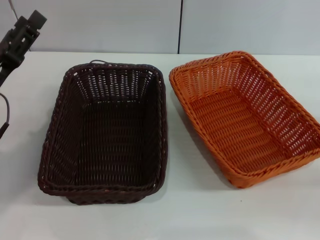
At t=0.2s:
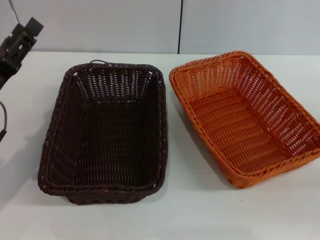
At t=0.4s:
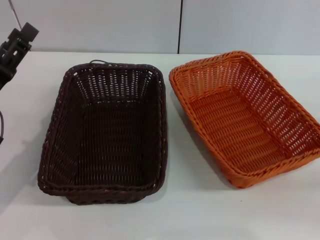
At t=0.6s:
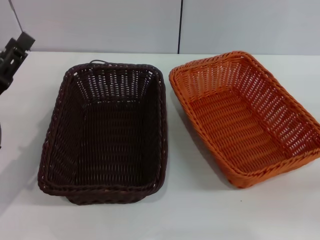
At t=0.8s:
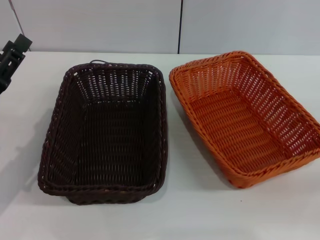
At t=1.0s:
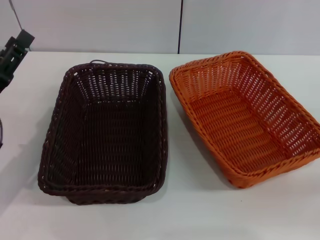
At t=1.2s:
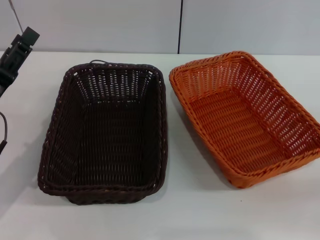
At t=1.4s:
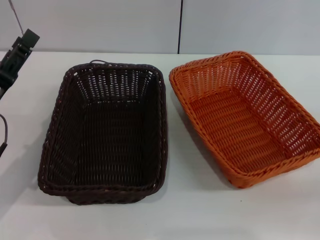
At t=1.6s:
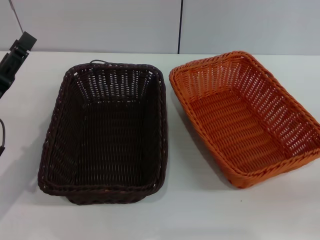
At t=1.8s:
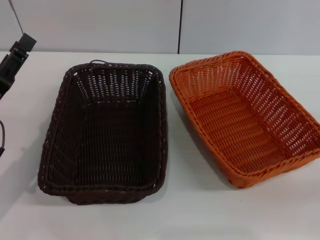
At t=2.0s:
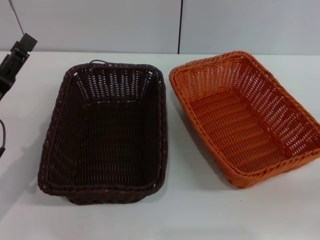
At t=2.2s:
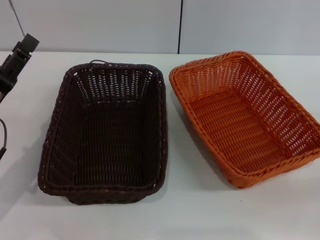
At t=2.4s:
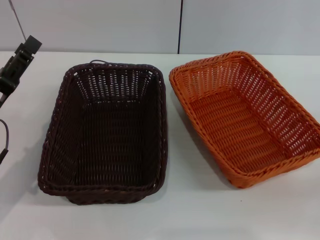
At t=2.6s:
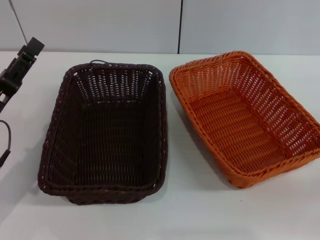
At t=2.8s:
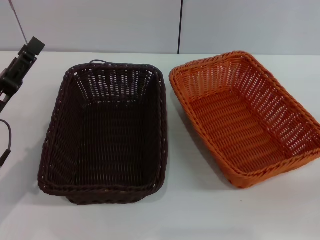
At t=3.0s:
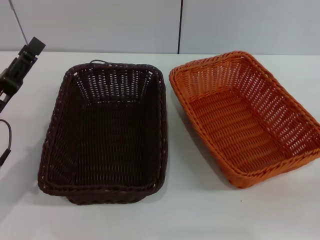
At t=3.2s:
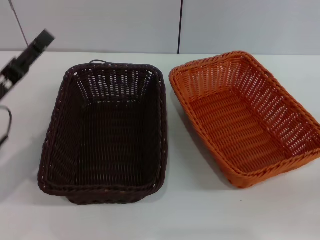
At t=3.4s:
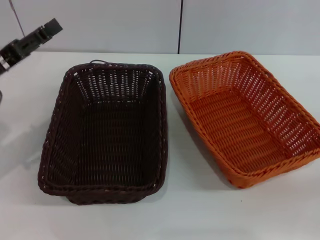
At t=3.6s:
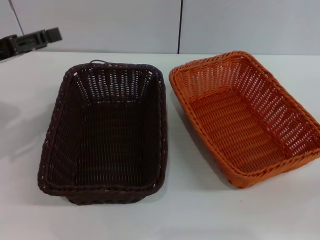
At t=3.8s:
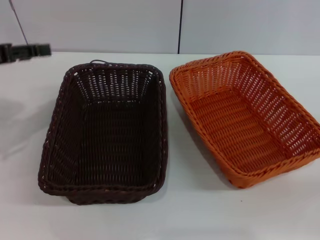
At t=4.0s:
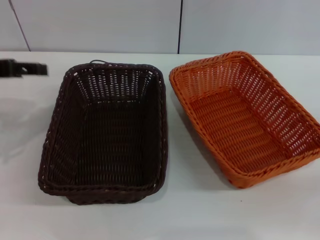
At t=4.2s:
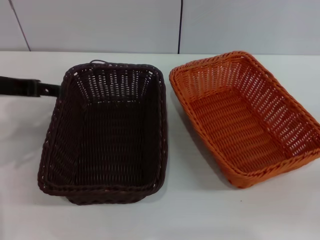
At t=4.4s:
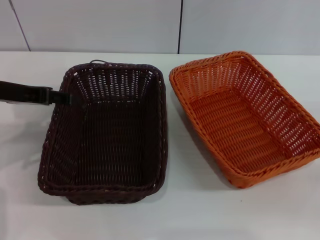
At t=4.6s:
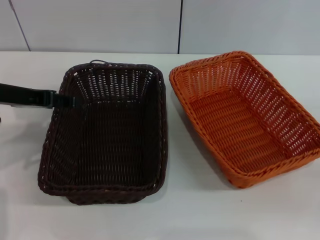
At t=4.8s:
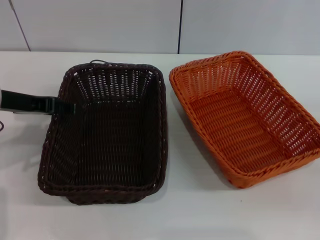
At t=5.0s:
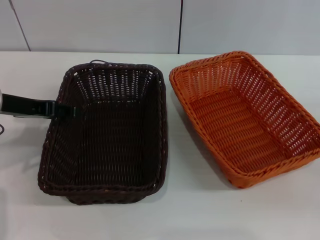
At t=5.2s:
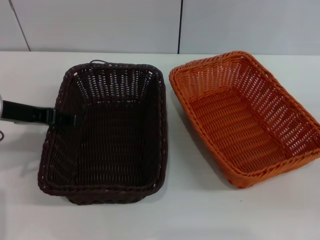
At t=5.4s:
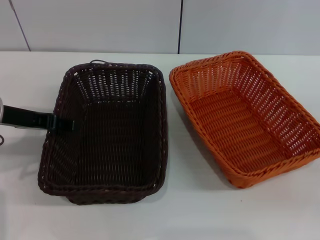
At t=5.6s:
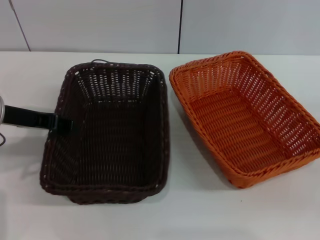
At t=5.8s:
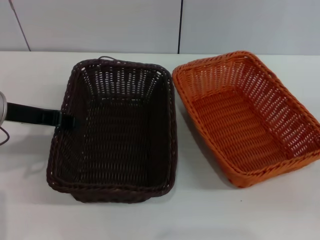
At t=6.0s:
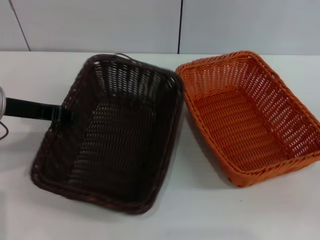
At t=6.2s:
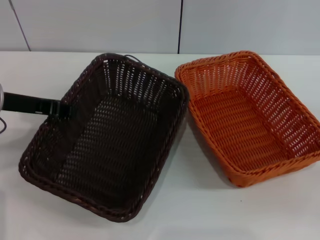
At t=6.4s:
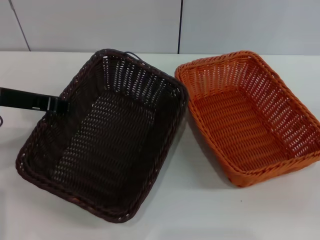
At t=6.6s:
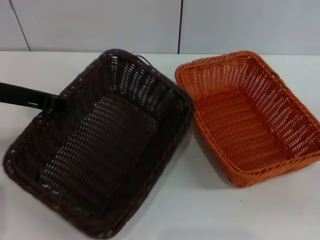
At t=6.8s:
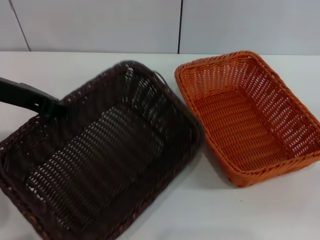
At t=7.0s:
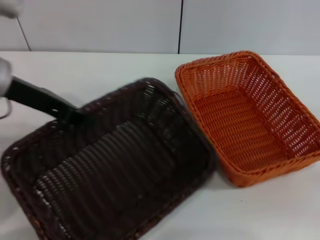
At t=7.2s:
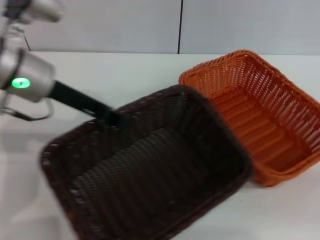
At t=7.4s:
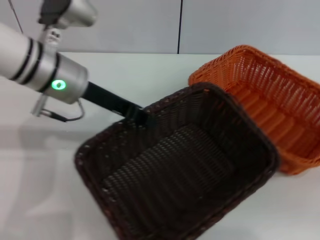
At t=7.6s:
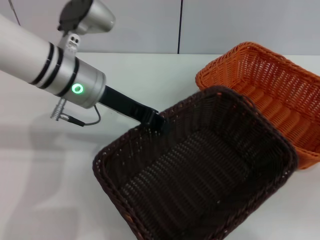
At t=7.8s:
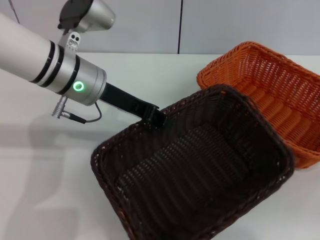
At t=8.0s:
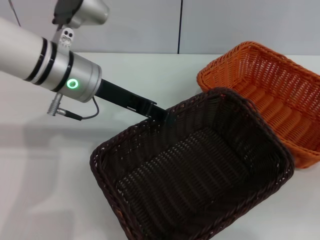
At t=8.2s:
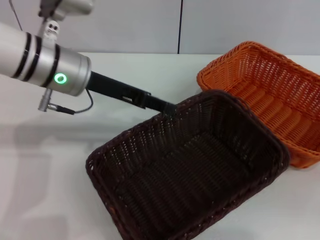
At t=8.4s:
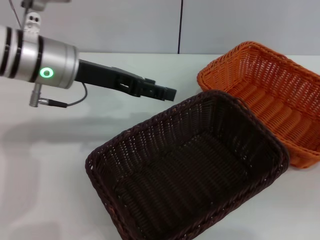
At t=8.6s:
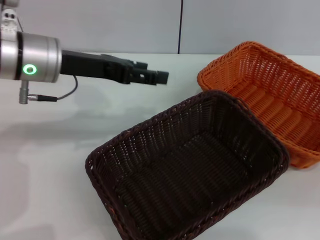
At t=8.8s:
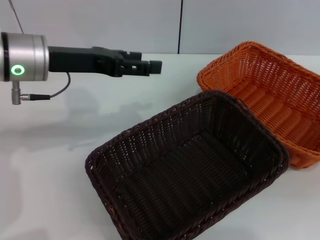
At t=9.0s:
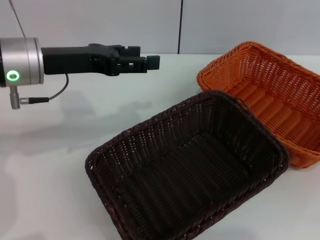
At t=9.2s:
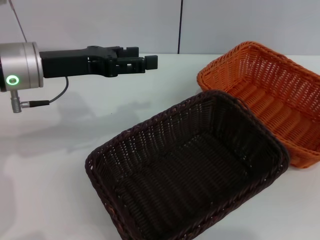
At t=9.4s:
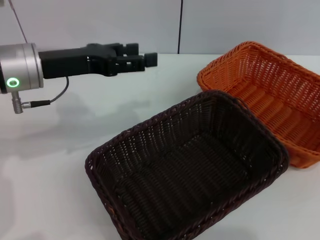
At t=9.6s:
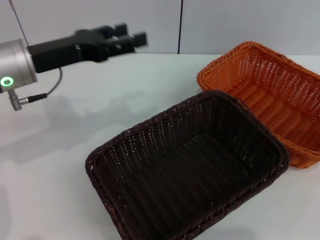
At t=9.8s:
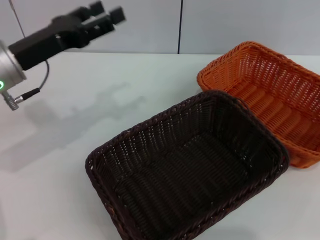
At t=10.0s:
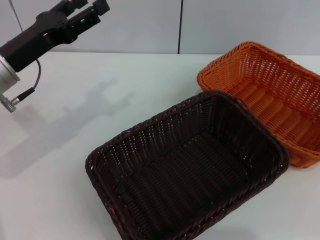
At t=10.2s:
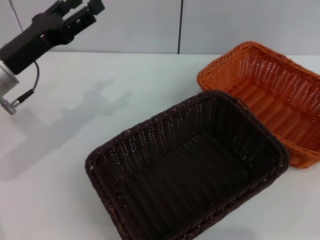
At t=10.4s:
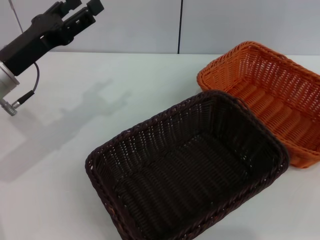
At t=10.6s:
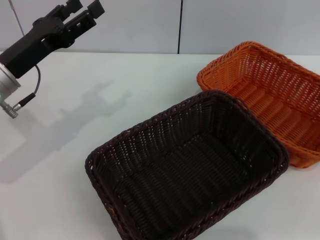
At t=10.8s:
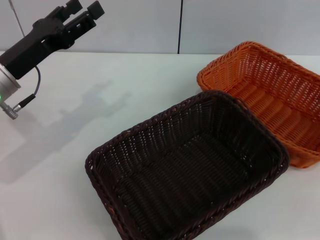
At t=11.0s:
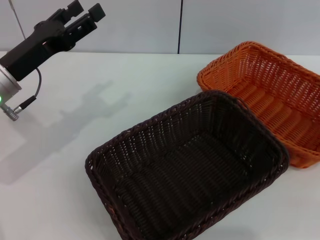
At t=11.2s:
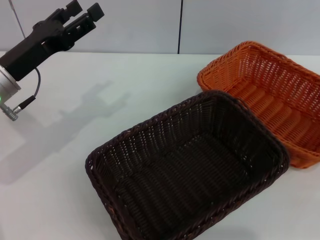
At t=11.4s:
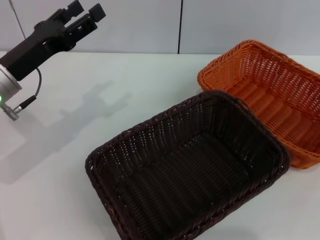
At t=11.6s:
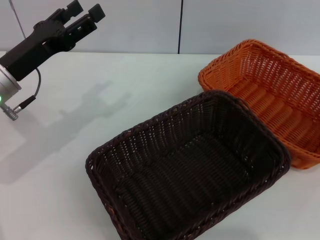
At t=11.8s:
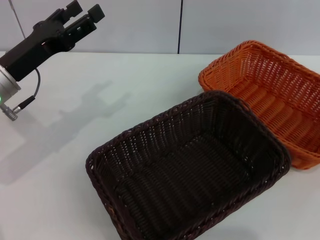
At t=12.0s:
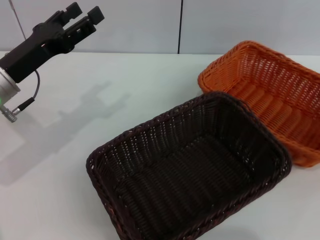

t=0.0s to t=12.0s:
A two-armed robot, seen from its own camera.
Step, t=0.0s to t=6.2s: Pick up the dark basket with the left gripper.
Step, t=6.4s to t=8.0s: Place the dark basket in the center of view with the left gripper.
t=0.0s to t=1.6s: The grippers move only a little.
t=1.6s to t=3.0s: The two grippers keep their place.
t=3.0s to t=4.4s: The left gripper heads upward and forward, covering approximately 15 cm.
t=4.4s to t=6.0s: The left gripper closes its fingers.
t=6.0s to t=7.6s: The left gripper shifts roughly 10 cm to the right.
t=7.6s to t=9.0s: The right gripper travels upward and to the right by some 10 cm. The left gripper is displaced to the left by roughly 5 cm, and opens.
t=9.0s to t=10.4s: The left gripper moves downward, approximately 5 cm, while the right gripper moves about 5 cm.
t=10.4s to t=12.0s: The right gripper shifts some 5 cm downward, and closes.

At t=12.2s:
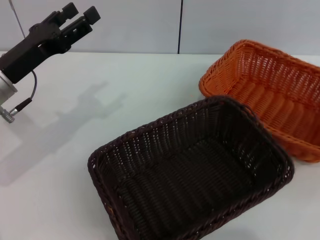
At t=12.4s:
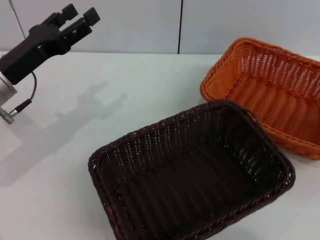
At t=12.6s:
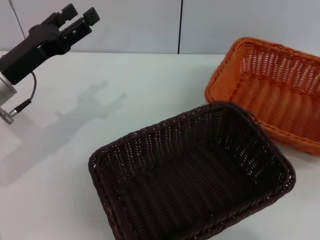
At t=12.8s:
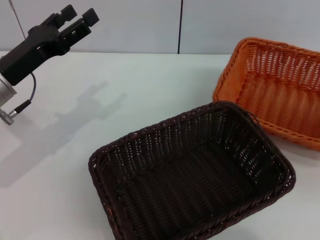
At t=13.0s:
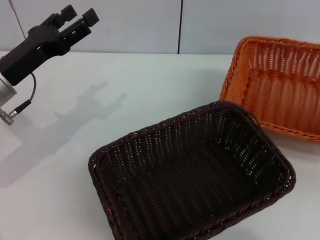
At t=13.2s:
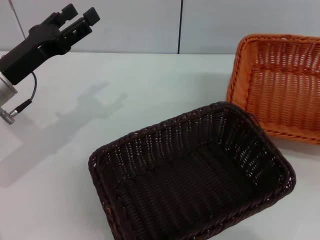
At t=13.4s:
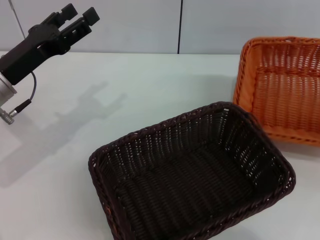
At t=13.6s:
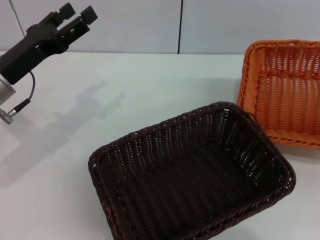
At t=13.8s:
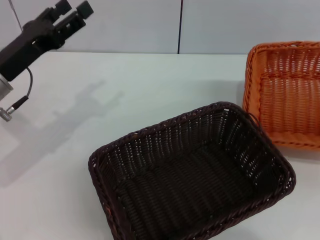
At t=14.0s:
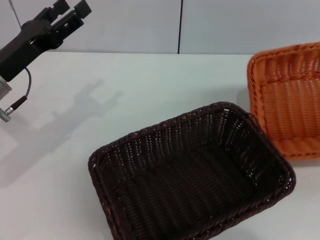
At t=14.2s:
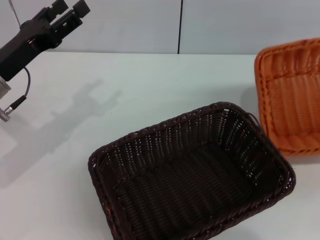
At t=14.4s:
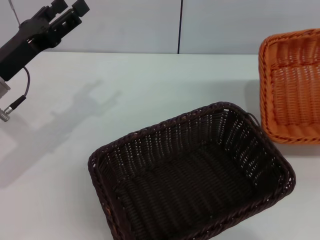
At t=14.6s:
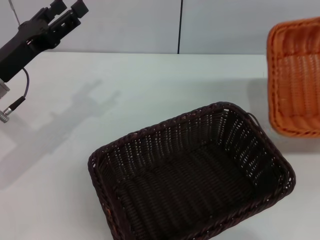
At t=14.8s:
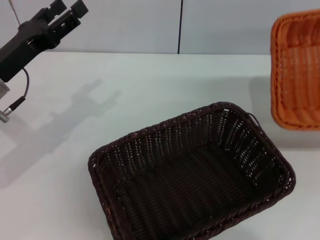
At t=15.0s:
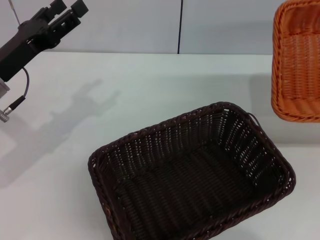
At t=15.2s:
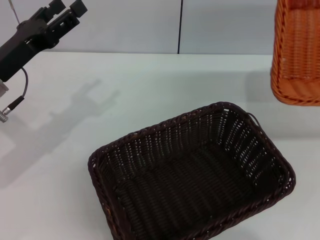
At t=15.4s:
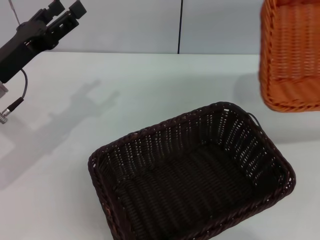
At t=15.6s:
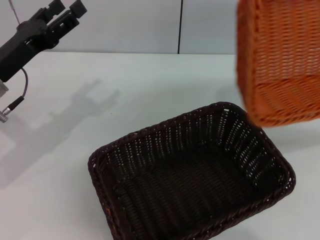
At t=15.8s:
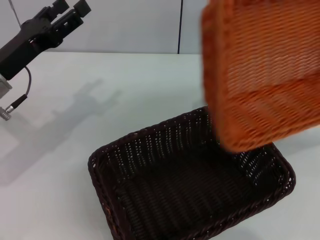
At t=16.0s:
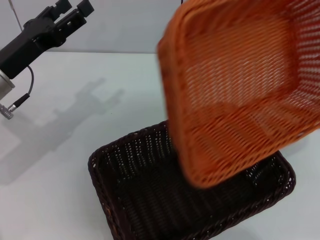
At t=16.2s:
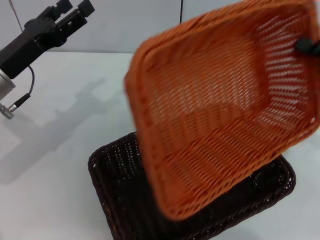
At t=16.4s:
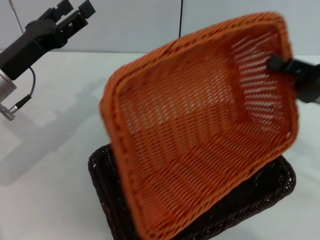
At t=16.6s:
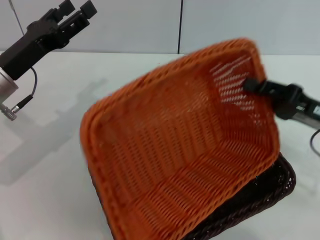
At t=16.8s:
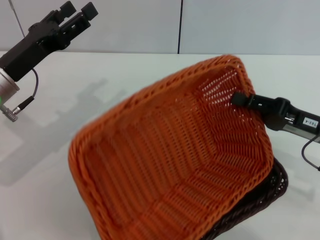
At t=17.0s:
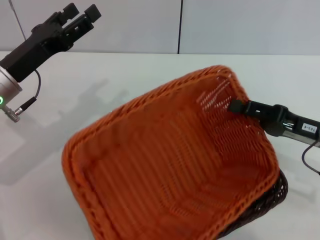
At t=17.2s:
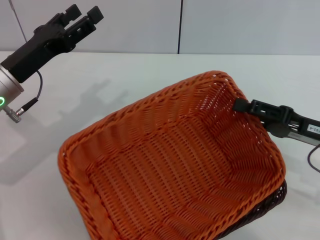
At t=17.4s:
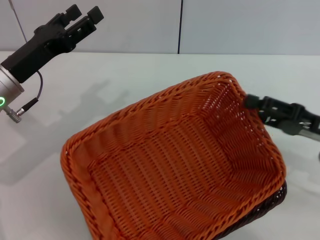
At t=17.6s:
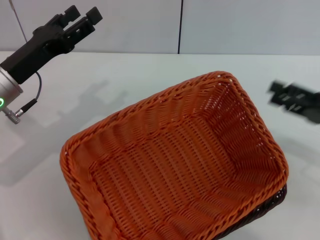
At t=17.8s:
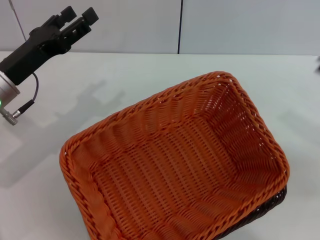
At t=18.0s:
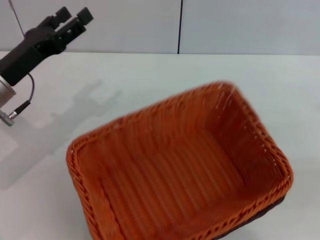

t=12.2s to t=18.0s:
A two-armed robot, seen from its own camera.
Step, t=13.4s to t=17.4s: Place the light basket on the dark basket with the right gripper.
t=12.2s to t=13.6s: The right gripper shifts by some 5 cm, and closes up.
t=15.0s to t=16.6s: The right gripper is displaced to the left by about 20 cm.
t=16.6s to t=18.0s: The right gripper moves to the right, some 15 cm, and opens up.
